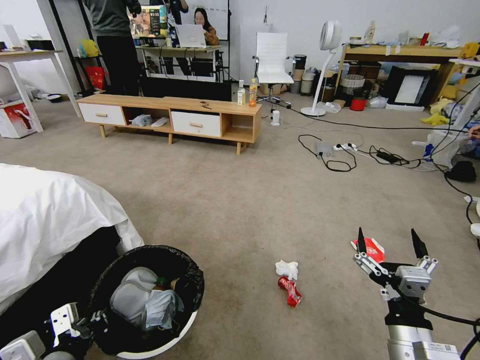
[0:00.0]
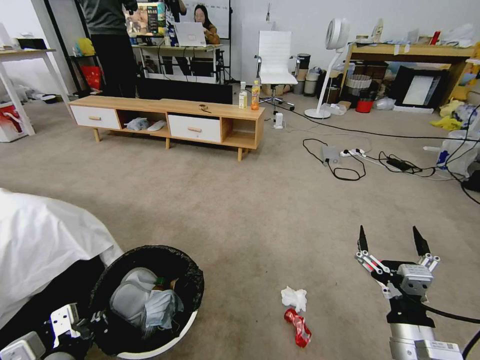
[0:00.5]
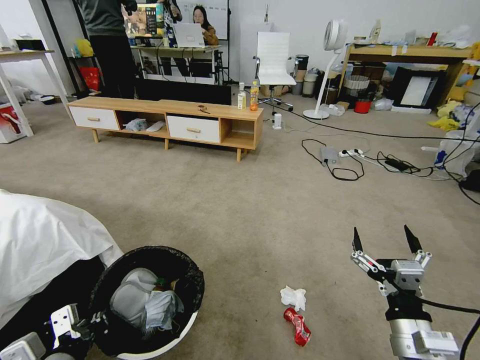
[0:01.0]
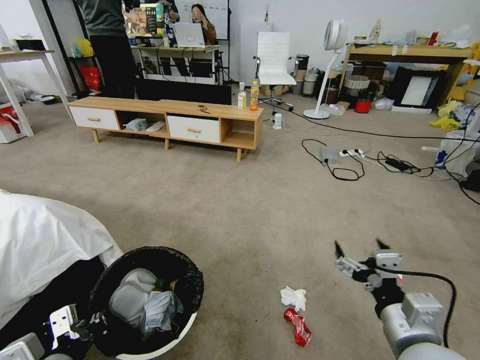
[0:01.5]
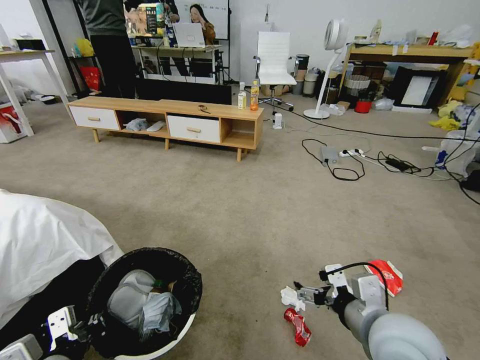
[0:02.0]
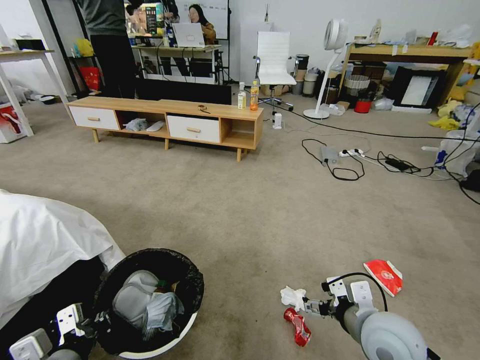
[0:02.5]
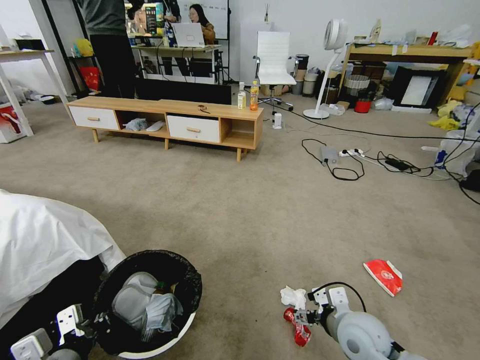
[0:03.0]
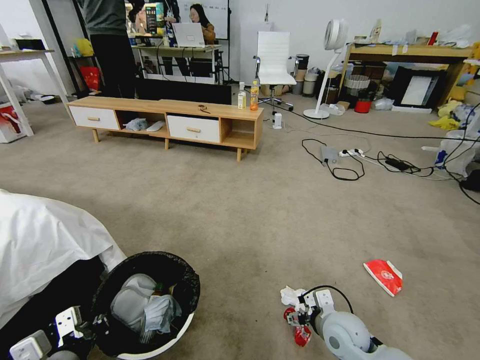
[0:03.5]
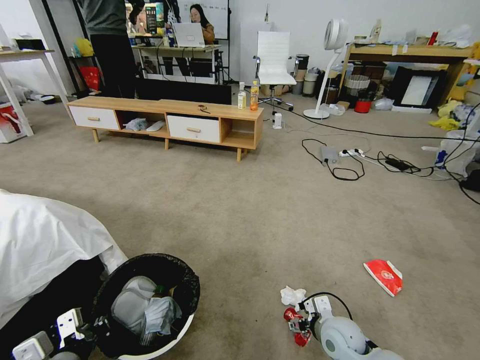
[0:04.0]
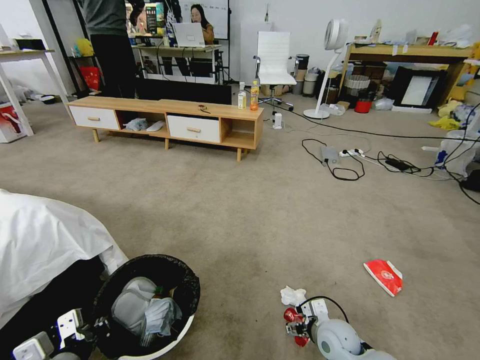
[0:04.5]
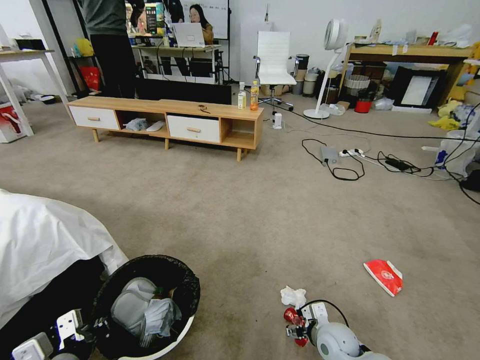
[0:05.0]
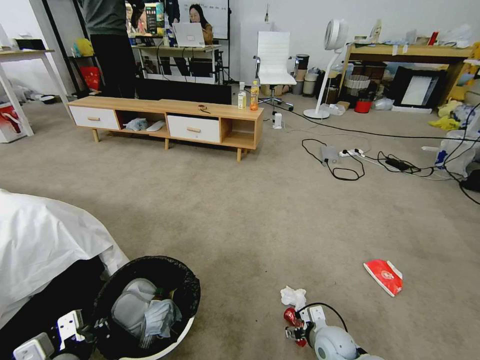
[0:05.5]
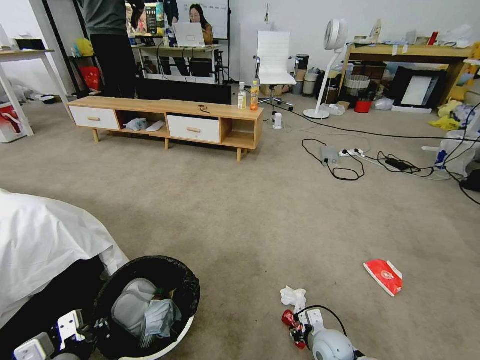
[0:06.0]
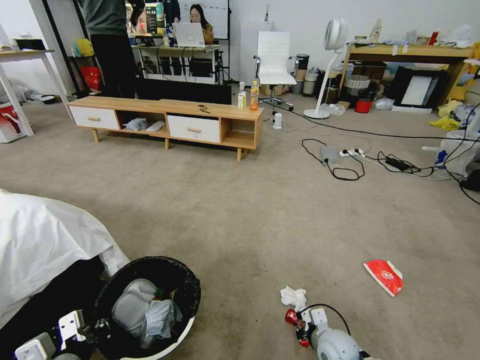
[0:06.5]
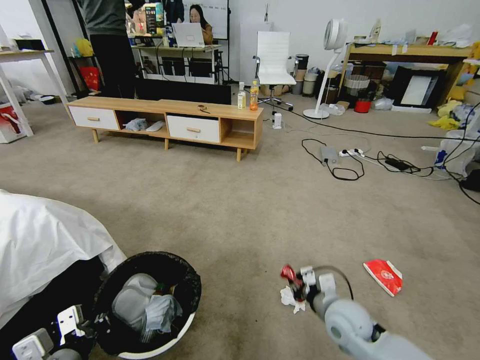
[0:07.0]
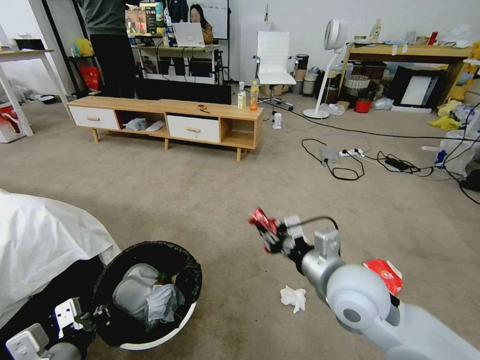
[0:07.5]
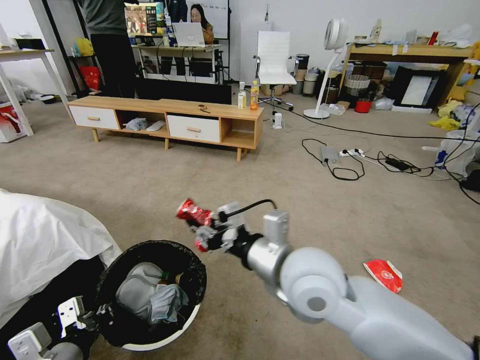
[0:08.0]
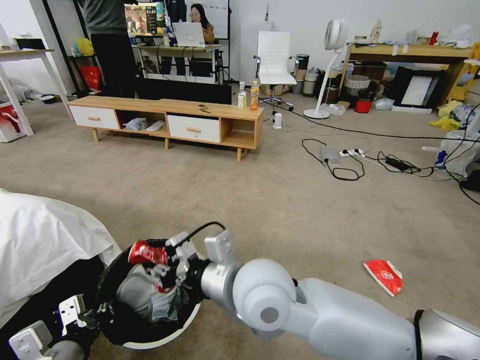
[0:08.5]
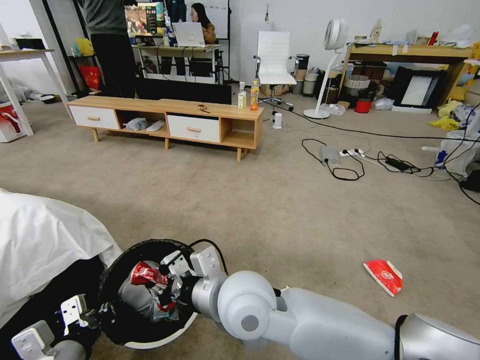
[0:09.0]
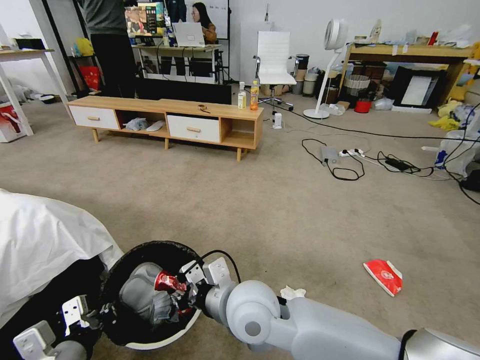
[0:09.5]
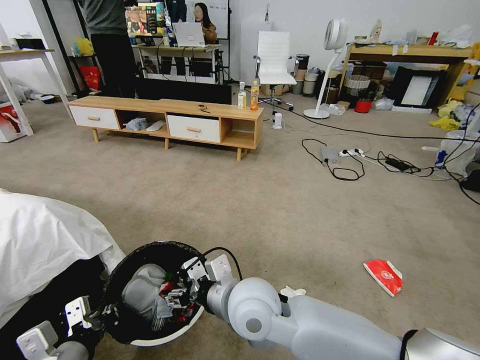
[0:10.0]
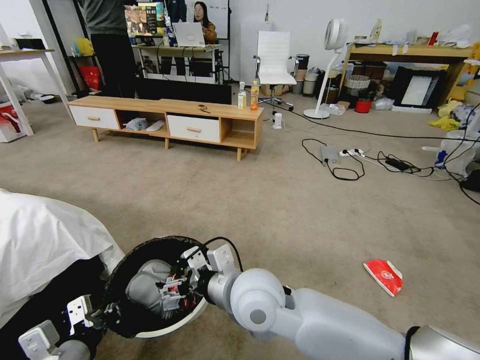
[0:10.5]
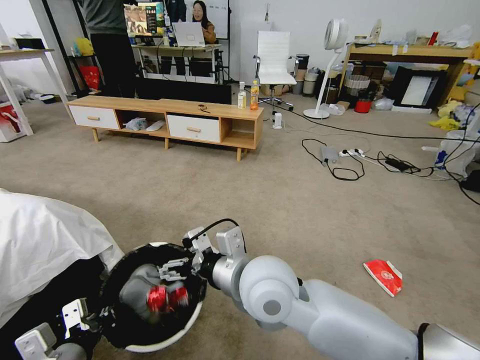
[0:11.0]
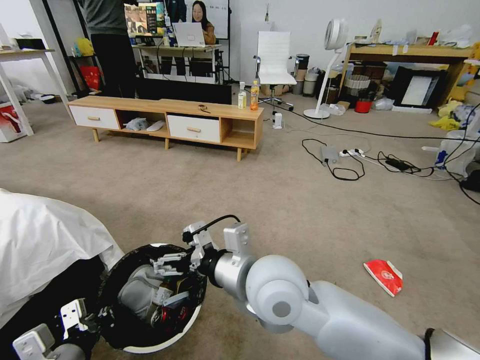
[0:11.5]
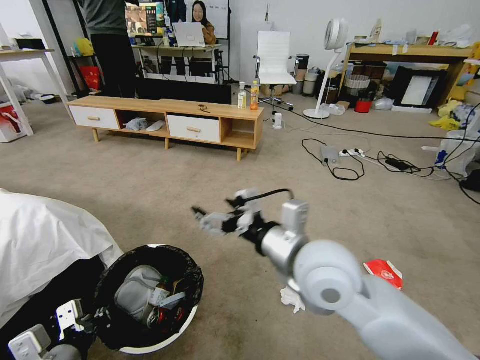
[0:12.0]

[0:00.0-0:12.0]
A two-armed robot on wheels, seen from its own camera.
Task of the whole recording: Pick up the trash bin and place the garbage on the floor into it.
0.0 to 2.0 s: The right gripper goes approximately 10 cm upward and forward.
2.0 to 4.0 s: The right gripper heads downward and forward, covering about 25 cm.
4.0 to 6.0 s: The right gripper travels downward by about 10 cm, and closes up.
6.0 to 8.0 s: The right gripper heads upward, covering approximately 35 cm.
8.0 to 10.0 s: The right gripper heads downward and to the left, covering approximately 10 cm, and opens.
10.0 to 12.0 s: The right gripper is displaced to the right and upward by roughly 15 cm.

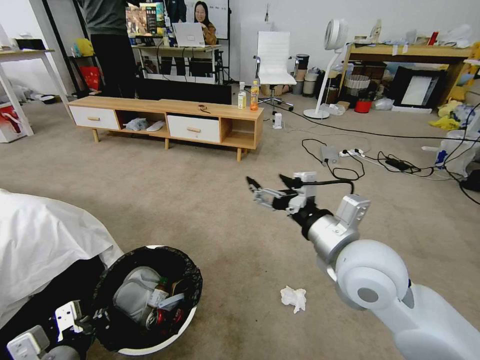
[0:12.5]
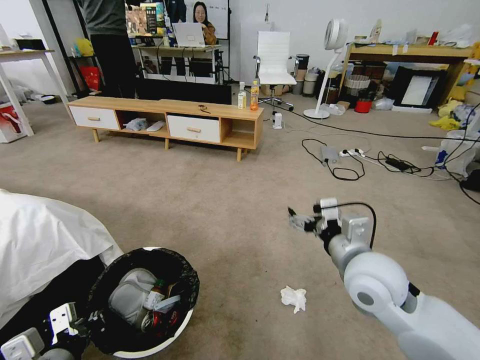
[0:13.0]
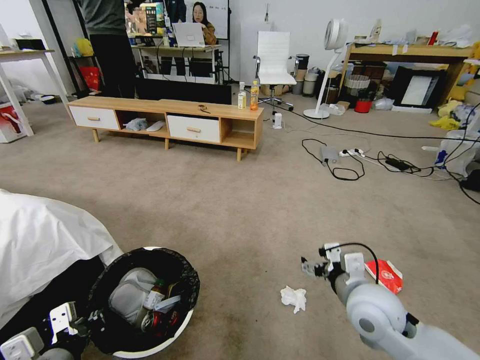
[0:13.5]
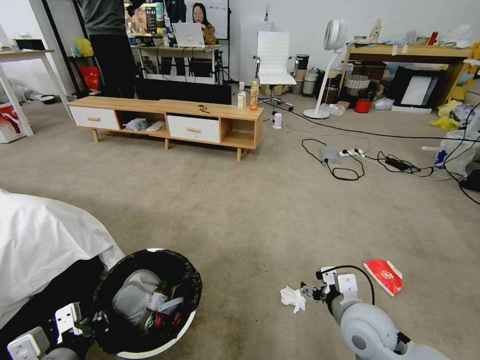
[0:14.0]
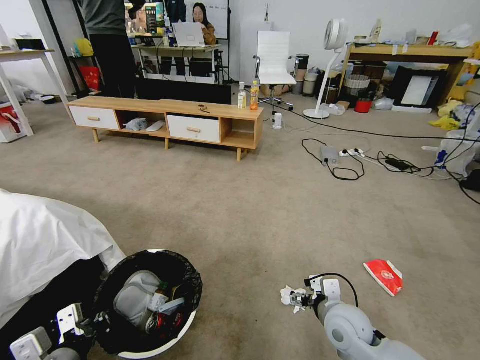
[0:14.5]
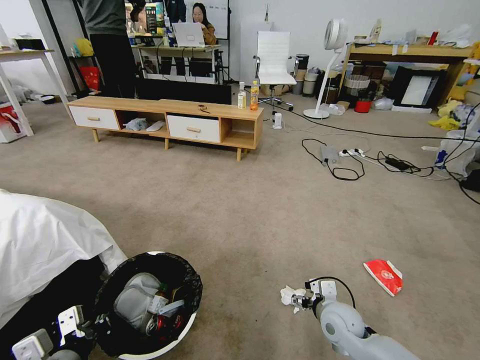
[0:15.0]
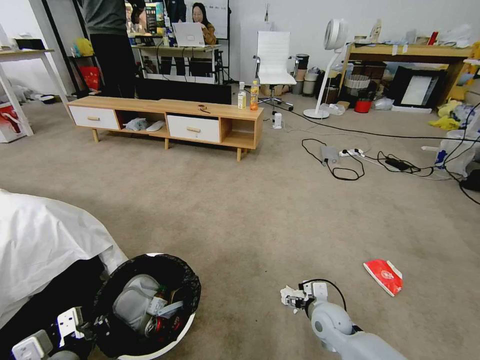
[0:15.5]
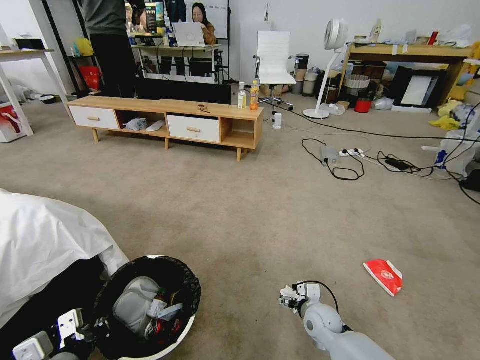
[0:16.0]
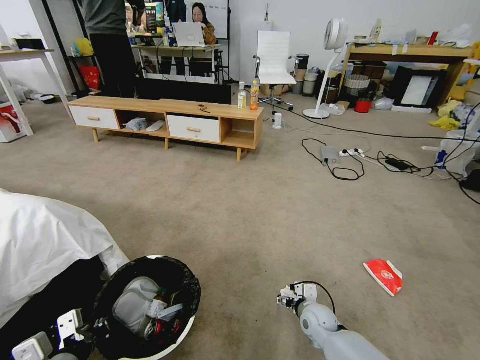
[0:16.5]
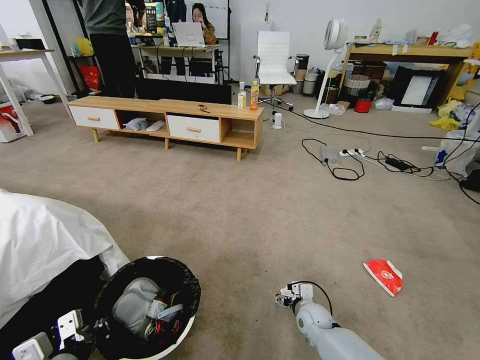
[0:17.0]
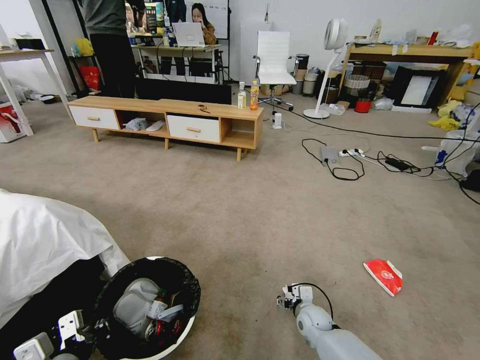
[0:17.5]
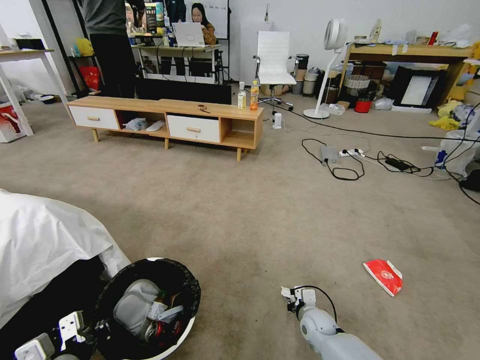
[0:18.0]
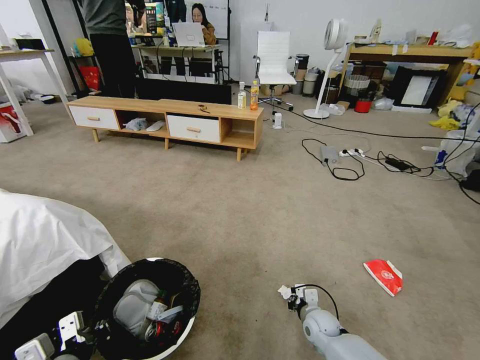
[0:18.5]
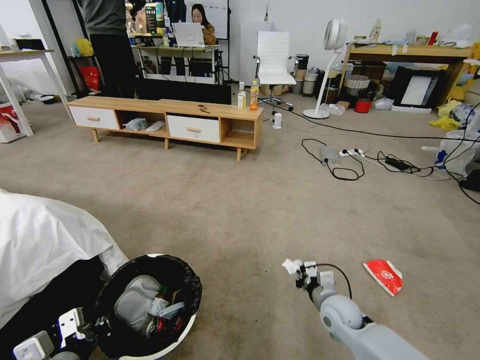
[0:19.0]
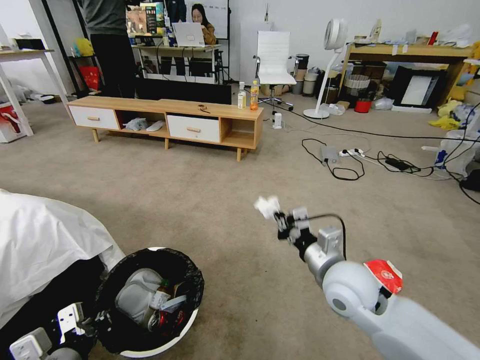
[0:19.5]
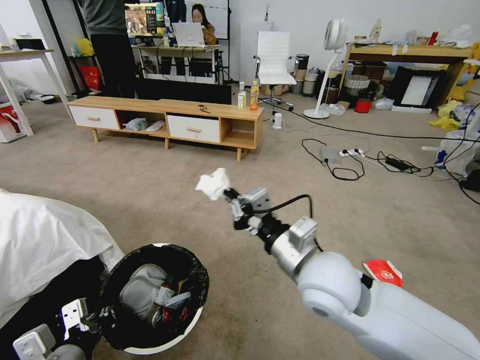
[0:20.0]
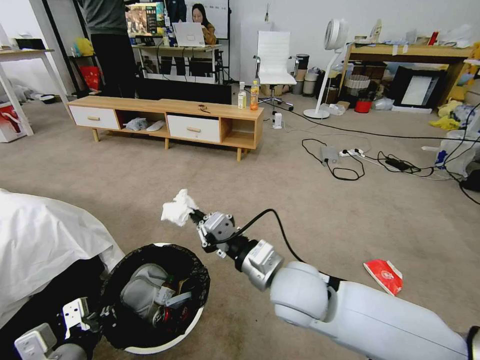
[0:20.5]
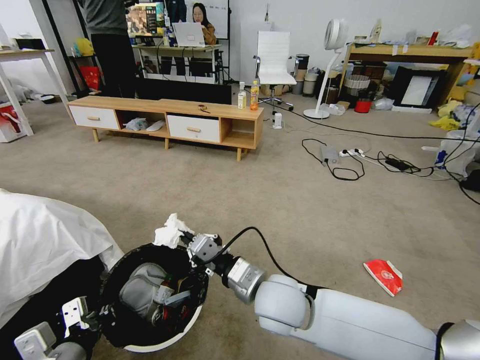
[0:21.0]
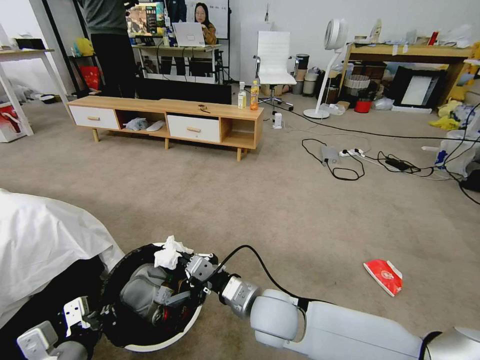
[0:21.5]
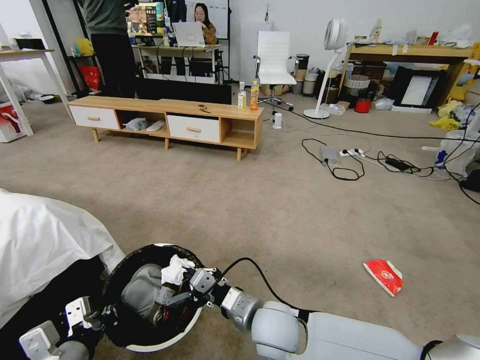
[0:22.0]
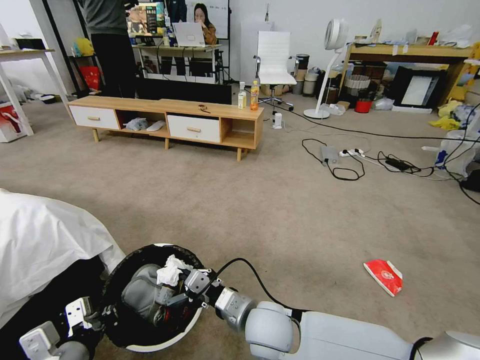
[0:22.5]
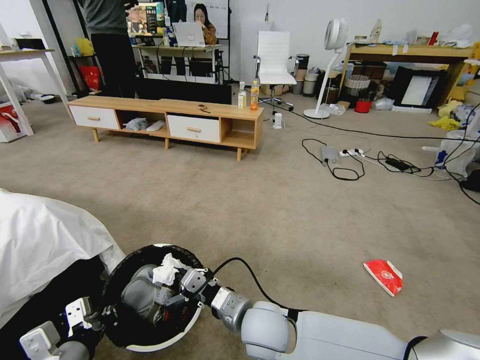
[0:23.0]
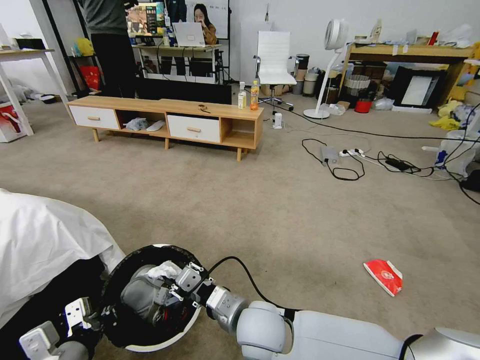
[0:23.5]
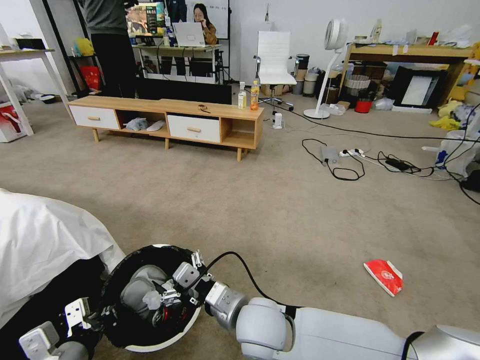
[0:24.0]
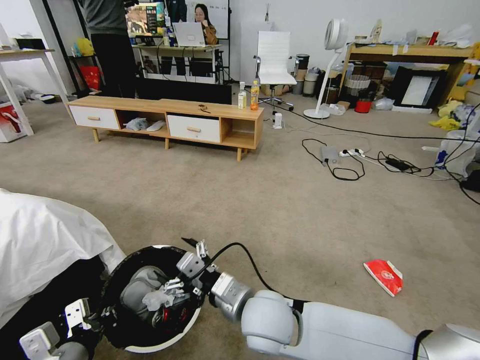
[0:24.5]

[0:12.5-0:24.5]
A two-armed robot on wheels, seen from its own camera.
Task of the whole recording: Pick up the trash bin and place the garbage on the floor into it.
12.5 to 14.5 s: The right gripper heads downward, covering some 25 cm.
14.5 to 16.5 s: The right gripper moves downward and forward, roughly 15 cm.
16.5 to 18.5 s: The right gripper closes.
18.5 to 20.5 s: The right gripper goes some 35 cm upward and to the left.
20.5 to 22.5 s: The right gripper goes approximately 10 cm downward.
22.5 to 24.5 s: The right gripper shifts roughly 5 cm upward, and opens up.

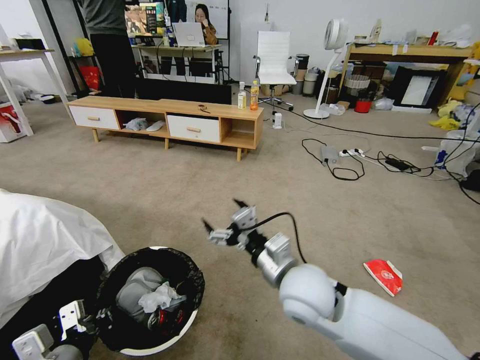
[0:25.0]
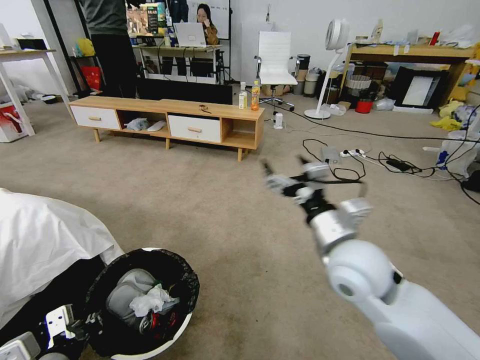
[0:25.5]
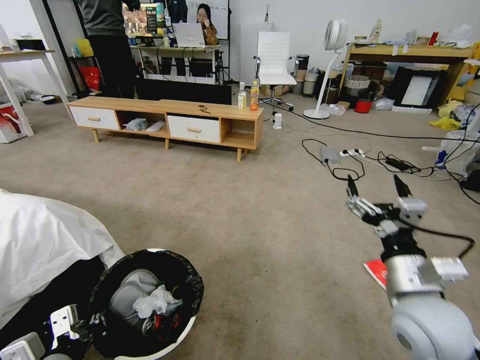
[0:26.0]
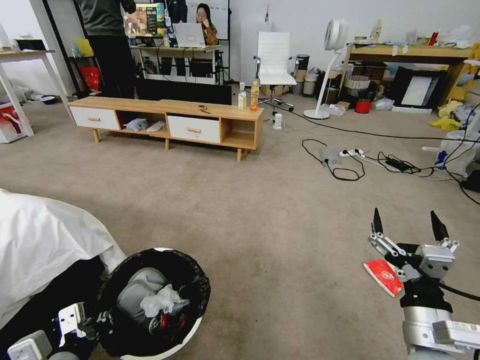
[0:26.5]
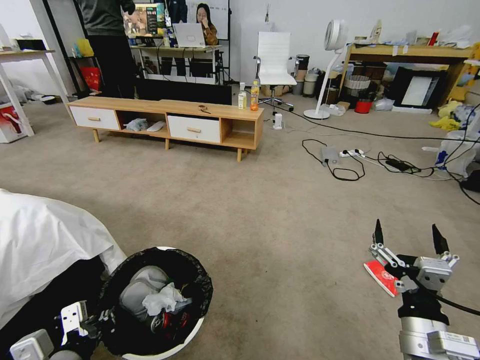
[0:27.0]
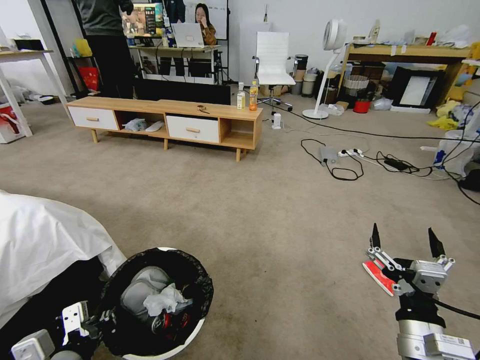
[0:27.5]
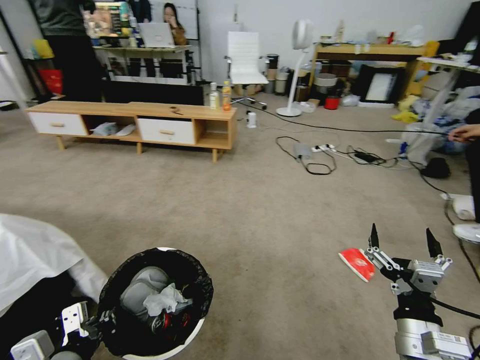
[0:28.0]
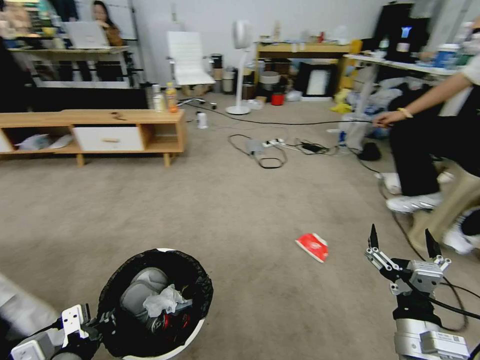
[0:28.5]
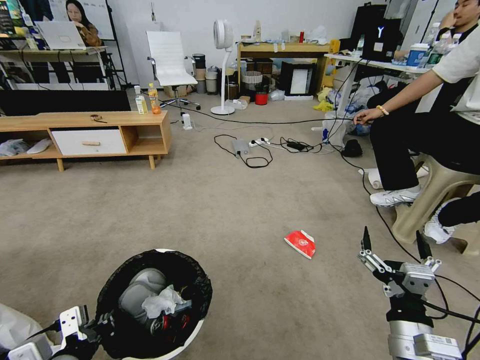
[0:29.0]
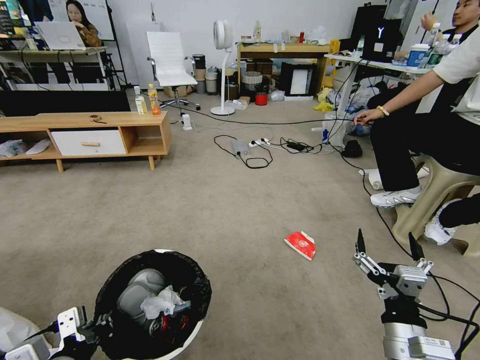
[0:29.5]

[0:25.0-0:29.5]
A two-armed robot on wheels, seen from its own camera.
Task of the whole recording: Pick up the trash bin and place the garbage on the floor into it.
25.0 to 27.0 s: The right gripper travels to the right and backward by about 20 cm.
